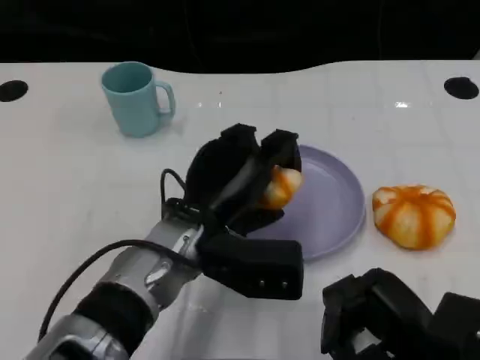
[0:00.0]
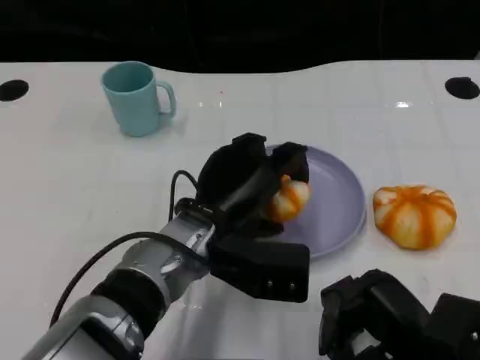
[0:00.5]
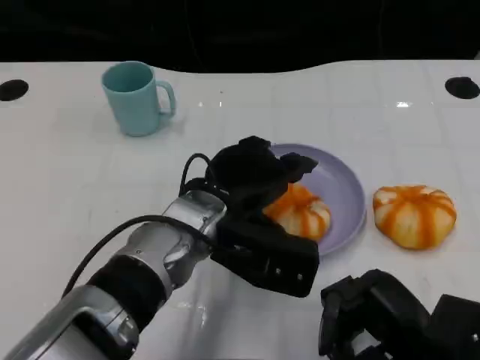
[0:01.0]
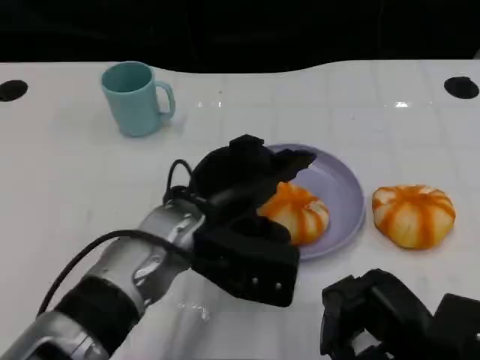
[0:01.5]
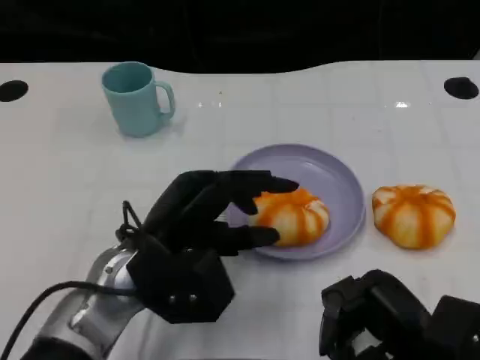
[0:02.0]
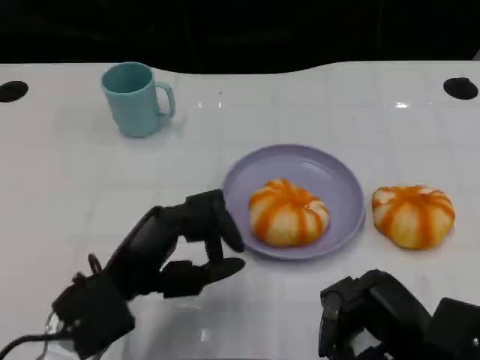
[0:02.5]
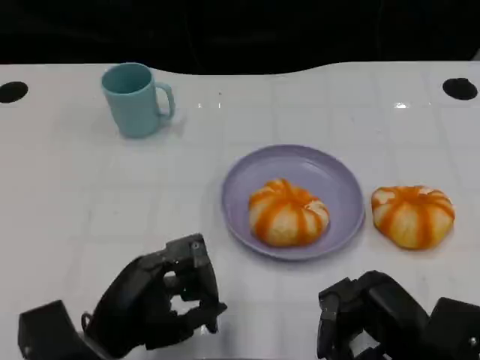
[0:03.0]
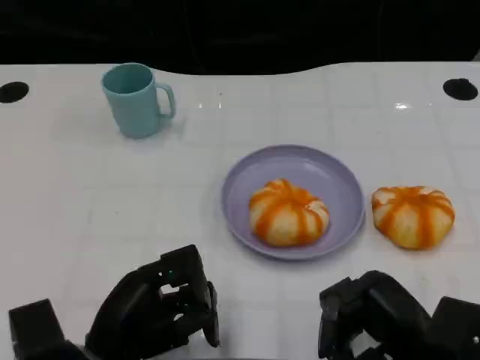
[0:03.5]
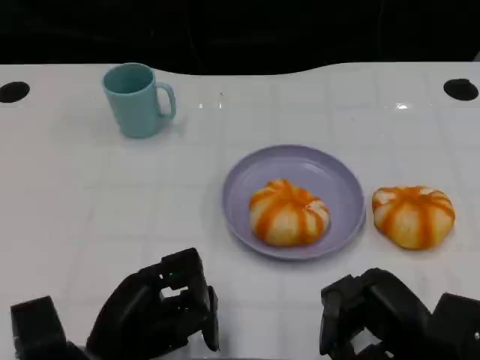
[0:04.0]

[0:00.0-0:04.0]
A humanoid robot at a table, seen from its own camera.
Task of the whole recording: Grasp the bread from the table and place it into the plate.
0:00.0 to 0:02.0: The left hand is displaced to the left by about 5 cm.
0:02.0 to 0:04.0: The left hand shifts some 10 cm backward, downward and to the left.

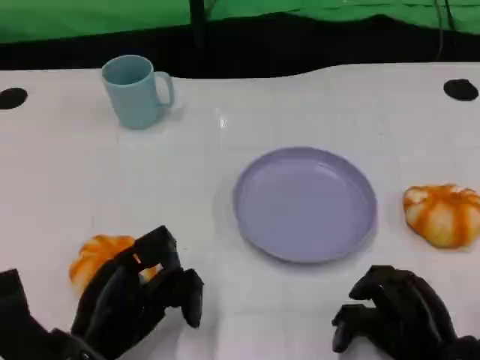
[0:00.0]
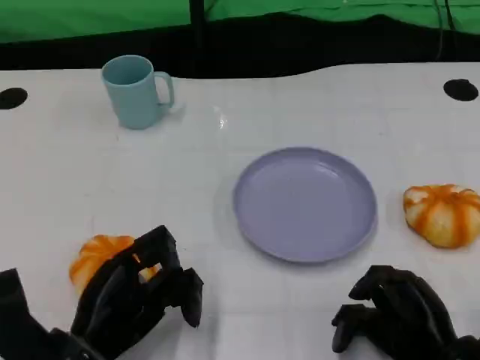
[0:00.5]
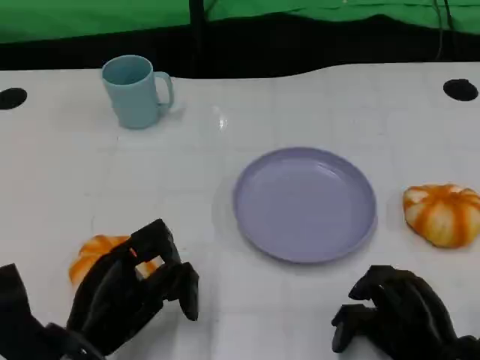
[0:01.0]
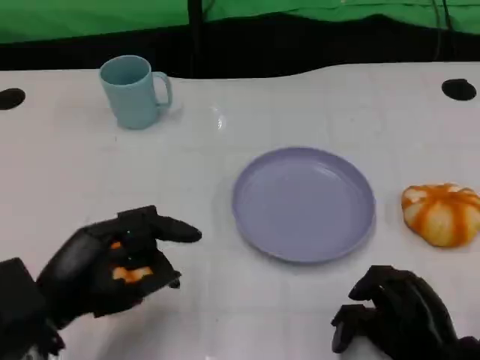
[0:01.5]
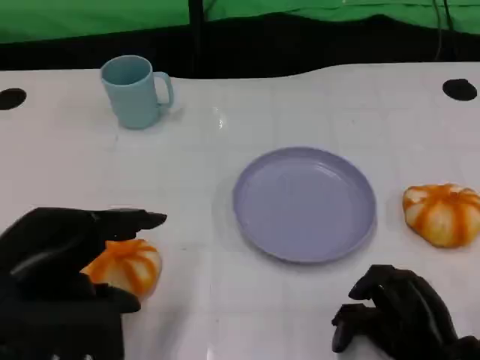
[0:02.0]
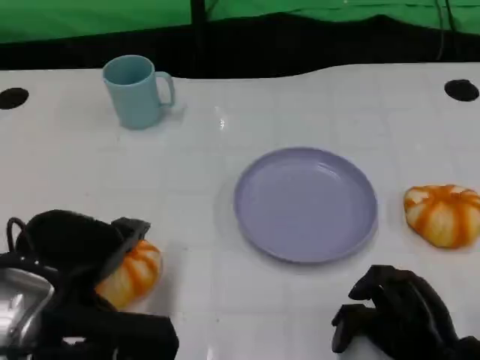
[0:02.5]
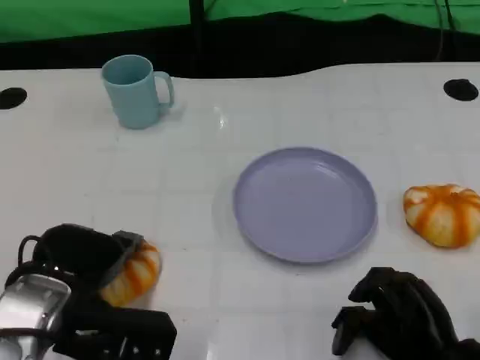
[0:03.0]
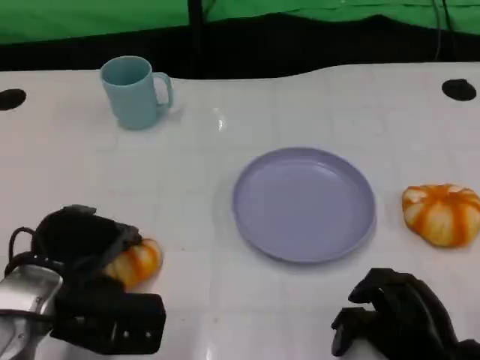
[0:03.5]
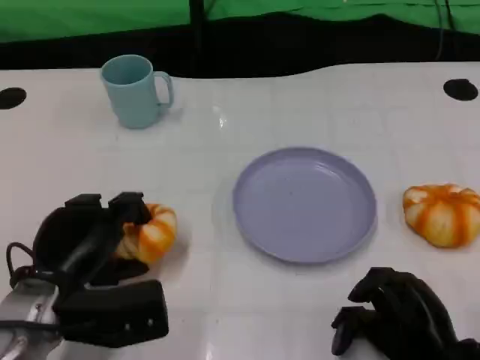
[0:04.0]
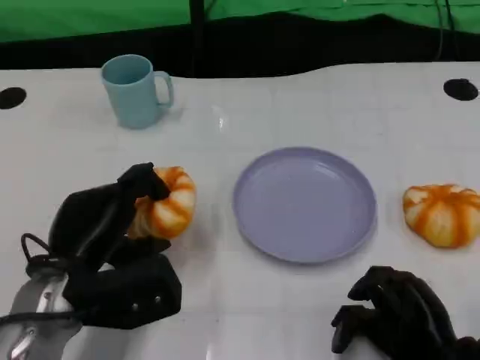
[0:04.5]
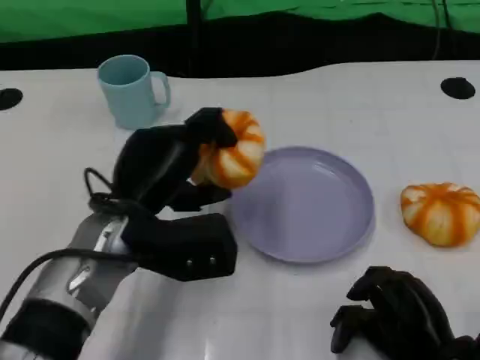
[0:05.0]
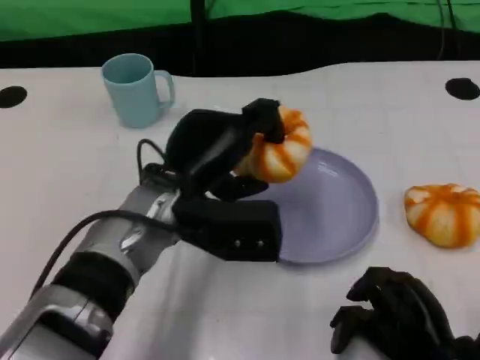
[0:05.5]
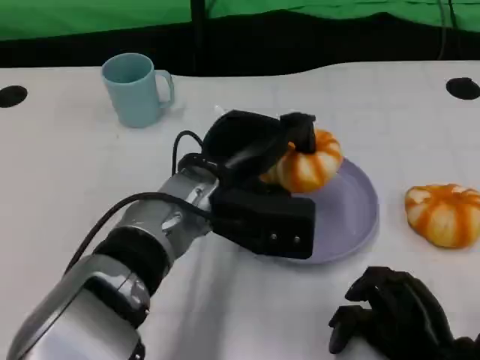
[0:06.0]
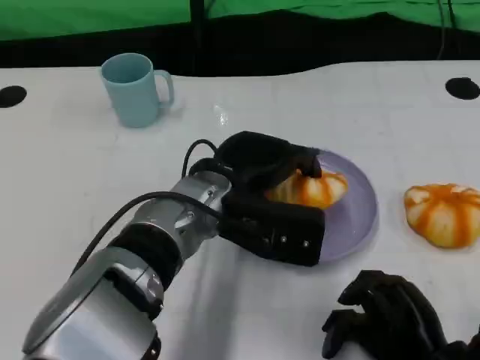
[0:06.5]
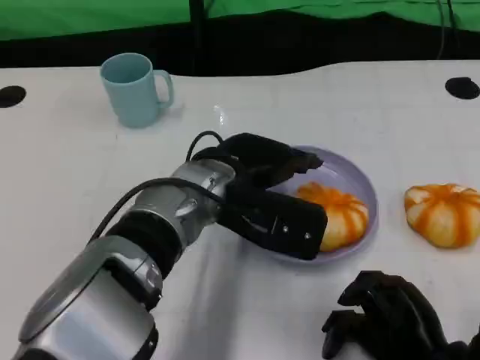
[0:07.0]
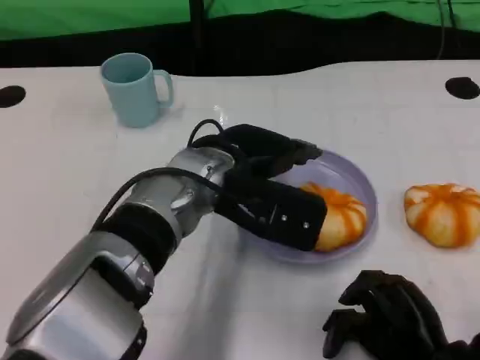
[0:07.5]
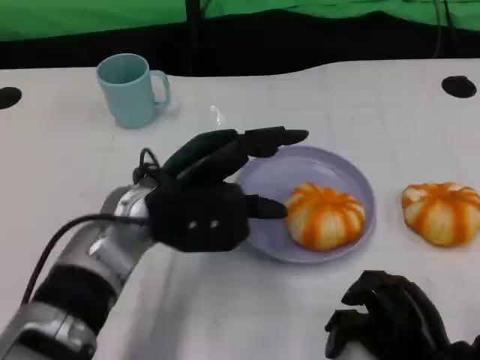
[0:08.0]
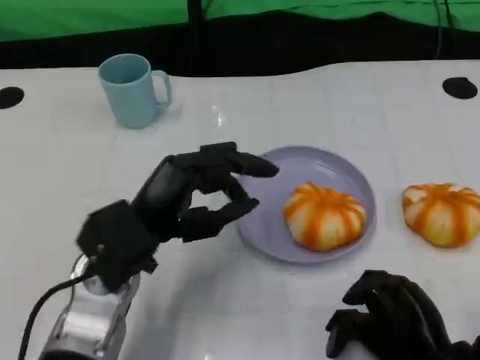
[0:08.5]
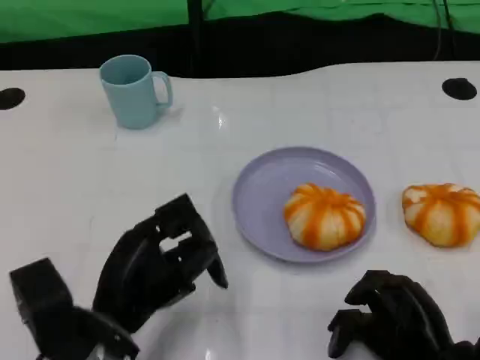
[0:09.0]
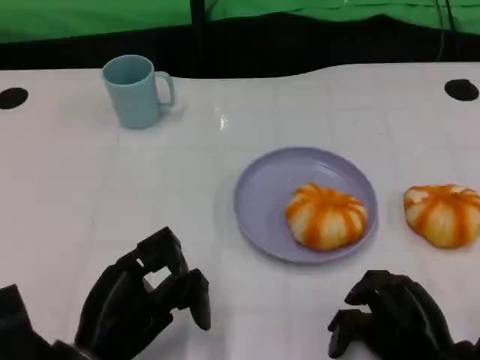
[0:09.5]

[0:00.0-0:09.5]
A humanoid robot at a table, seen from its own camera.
Task of the whole recording: Grasp the bread from the table and place it into the plate.
0:00.0 to 0:02.0: The left hand is displaced upward by approximately 15 cm.
0:02.0 to 0:04.0: The left hand heads downward and forward, covering approximately 10 cm.
0:04.0 to 0:05.5: The left hand moves to the right, forward and upward, approximately 15 cm.
0:07.5 to 0:09.5: The left hand travels backward, to the left and downward by approximately 20 cm.

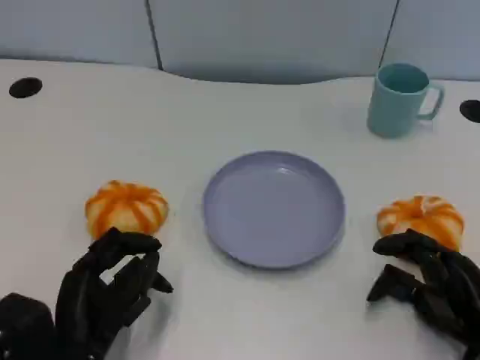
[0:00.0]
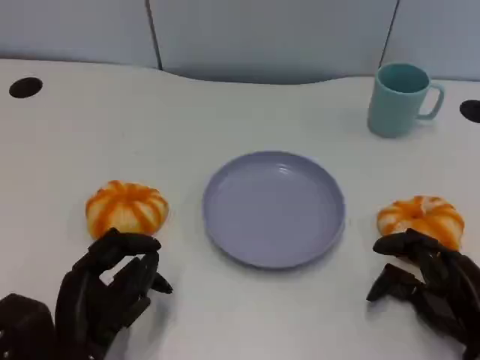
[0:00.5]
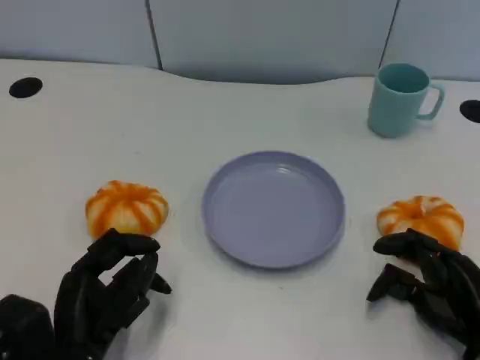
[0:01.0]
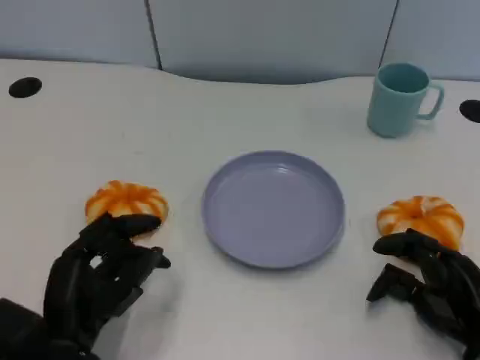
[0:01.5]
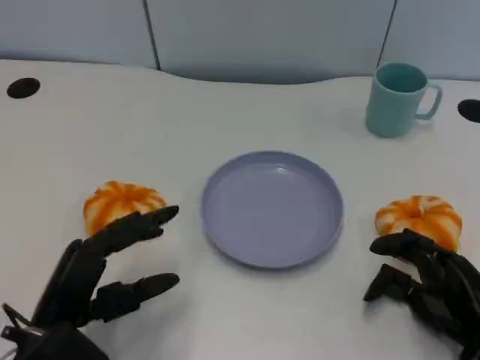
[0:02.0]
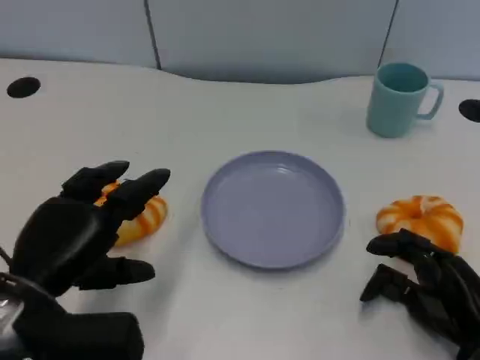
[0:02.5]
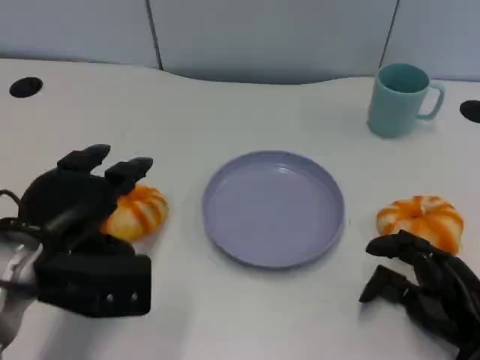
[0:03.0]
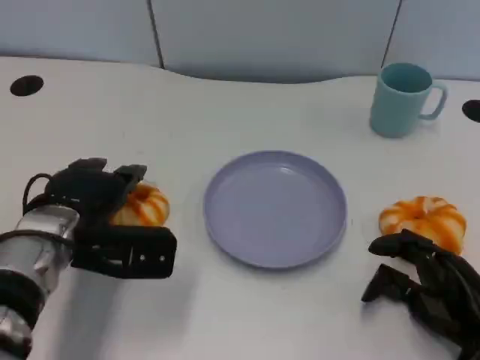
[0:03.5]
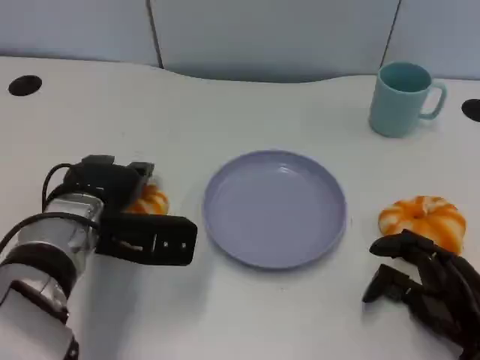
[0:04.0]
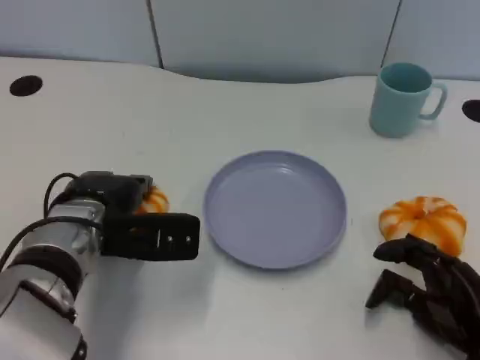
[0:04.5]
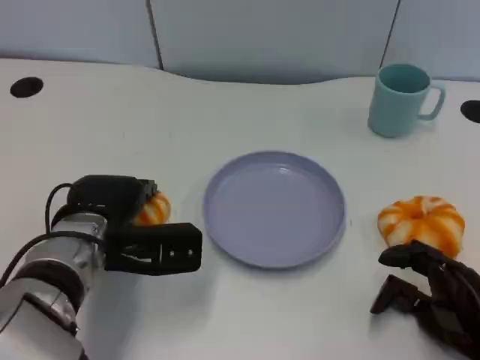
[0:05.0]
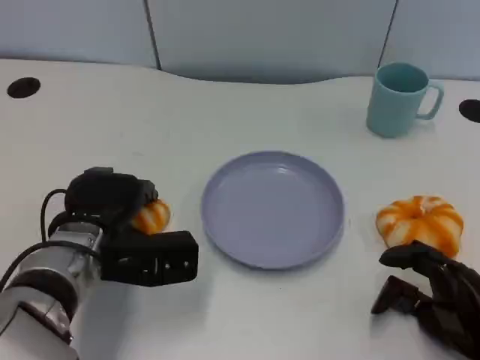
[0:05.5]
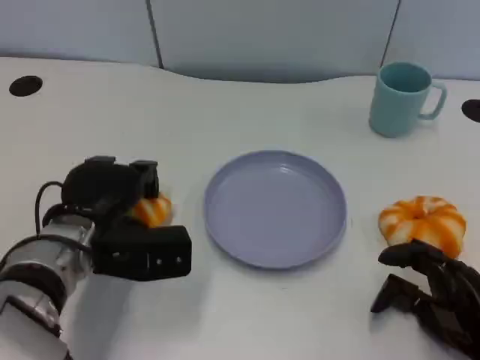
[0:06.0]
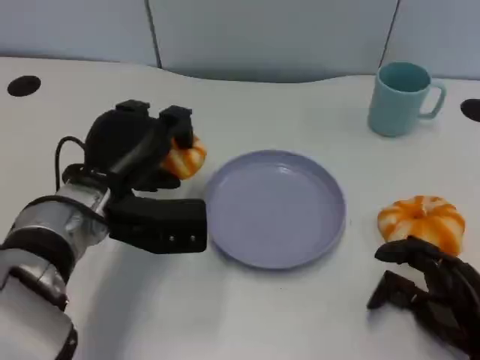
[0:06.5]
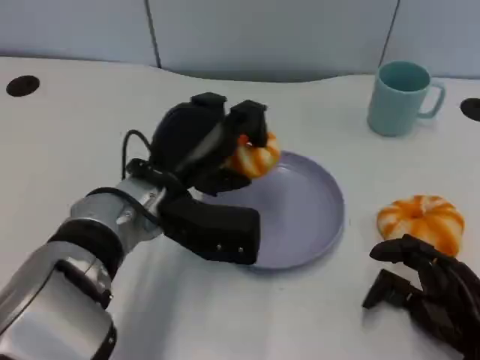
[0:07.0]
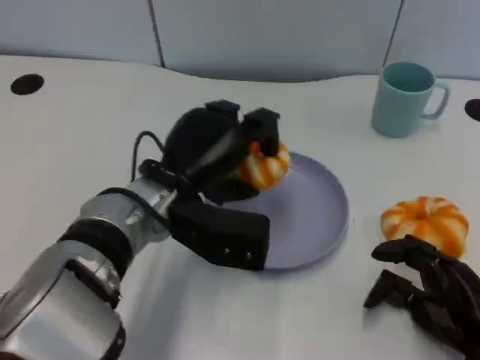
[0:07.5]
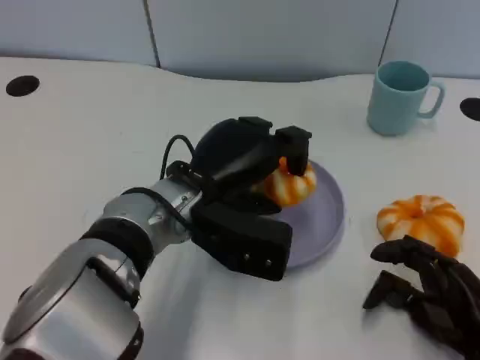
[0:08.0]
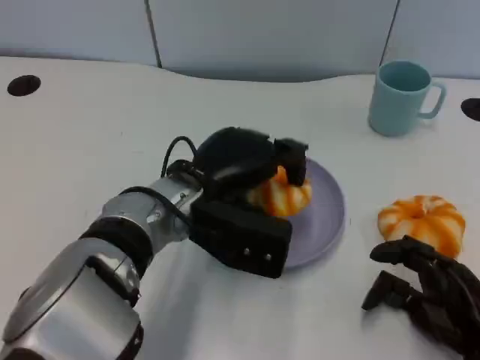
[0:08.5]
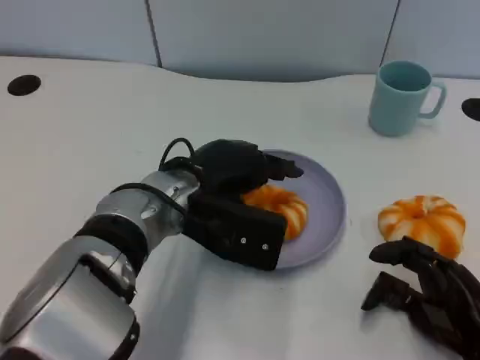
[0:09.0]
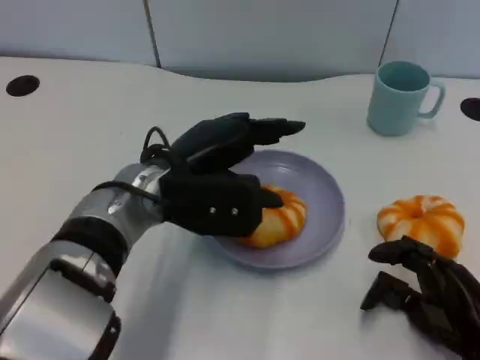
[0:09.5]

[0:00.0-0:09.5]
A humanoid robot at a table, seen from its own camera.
Task of the whole recording: Grasp the bread from the table and place it into the plate.
0:02.0 to 0:04.0: The left hand moves forward, roughly 15 cm.
0:04.0 to 0:05.5: The hands make only small movements.
0:05.5 to 0:07.5: The left hand is displaced to the right and upward by roughly 10 cm.

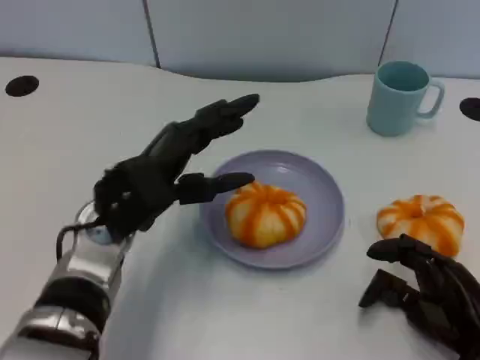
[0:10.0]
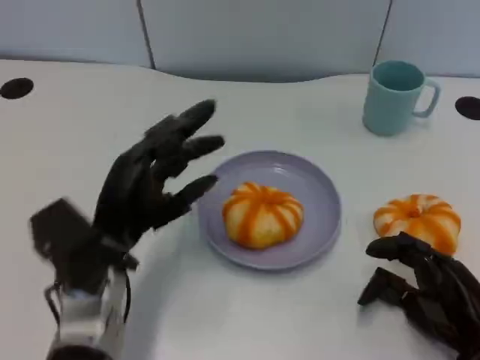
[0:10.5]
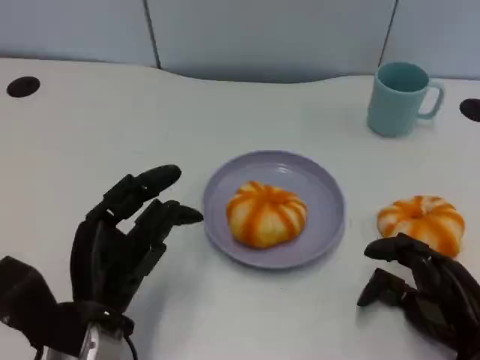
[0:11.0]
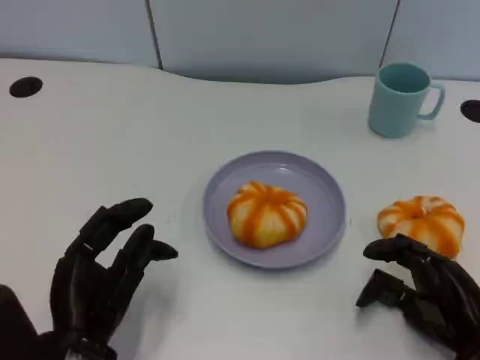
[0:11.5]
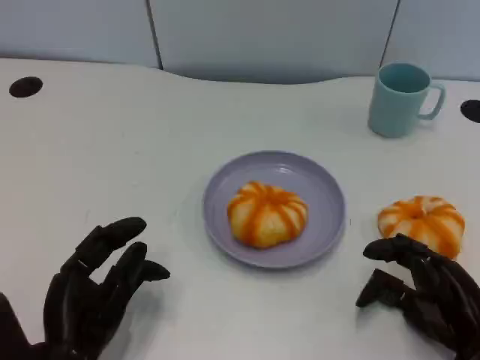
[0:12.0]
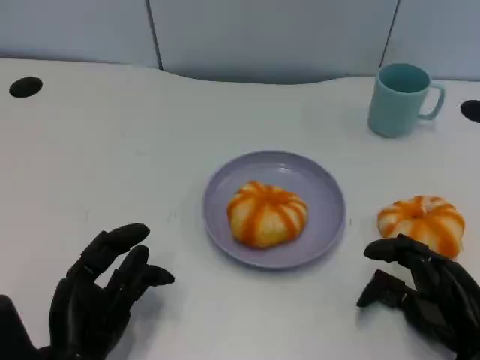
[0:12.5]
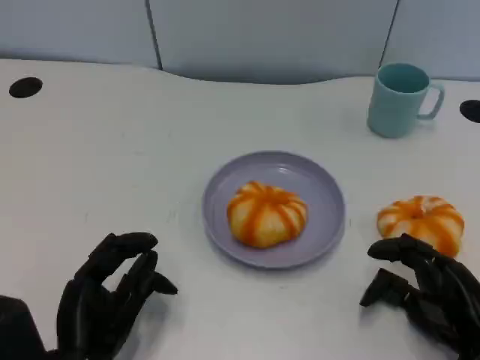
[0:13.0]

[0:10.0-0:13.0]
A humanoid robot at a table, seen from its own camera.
Task of the whole recording: Grasp the bread from the table and place it into the plate.
0:10.0 to 0:11.5: The left hand goes roughly 15 cm backward and downward.
0:11.5 to 0:13.0: There are only small adjustments of the hands.
